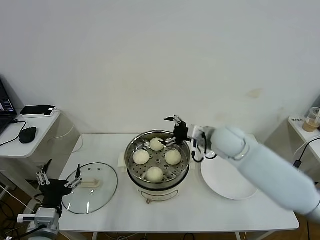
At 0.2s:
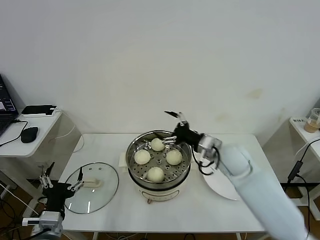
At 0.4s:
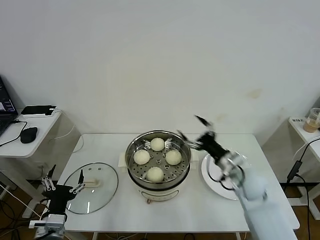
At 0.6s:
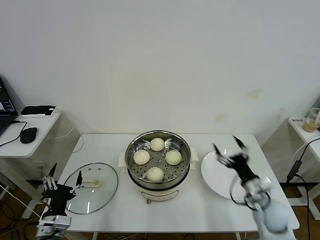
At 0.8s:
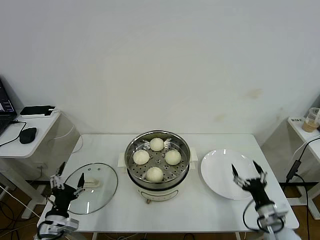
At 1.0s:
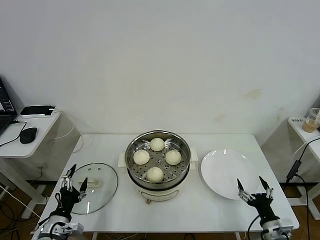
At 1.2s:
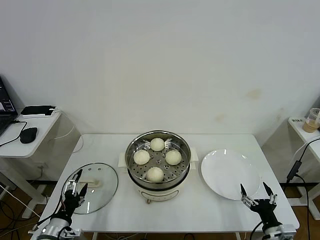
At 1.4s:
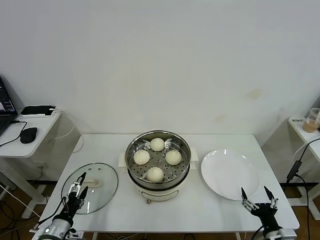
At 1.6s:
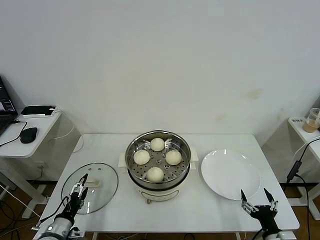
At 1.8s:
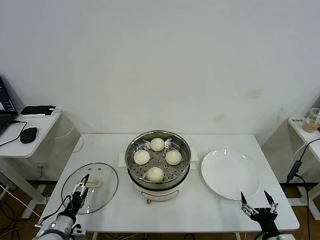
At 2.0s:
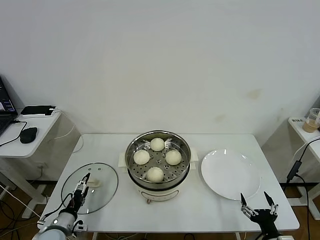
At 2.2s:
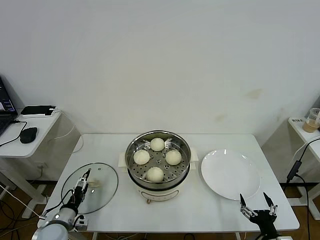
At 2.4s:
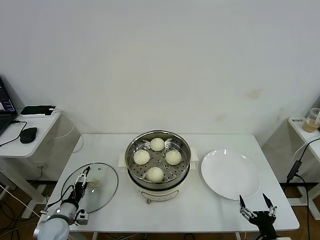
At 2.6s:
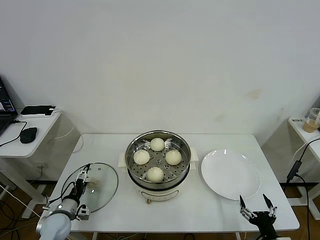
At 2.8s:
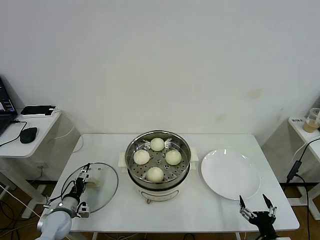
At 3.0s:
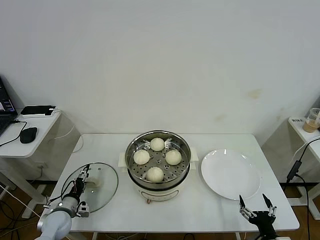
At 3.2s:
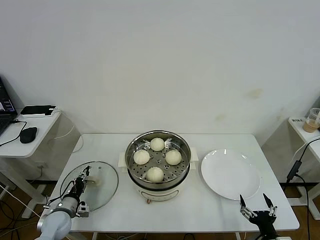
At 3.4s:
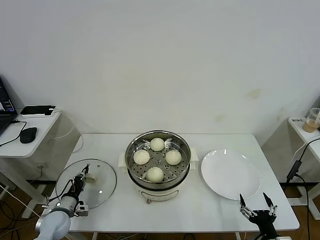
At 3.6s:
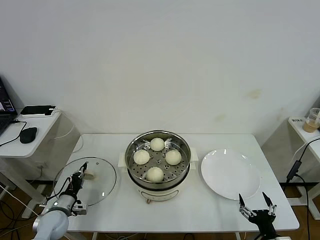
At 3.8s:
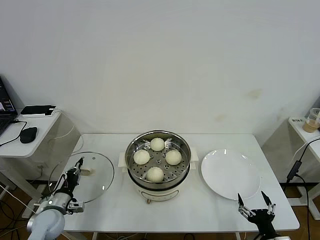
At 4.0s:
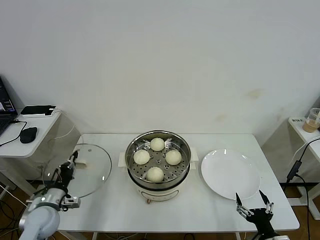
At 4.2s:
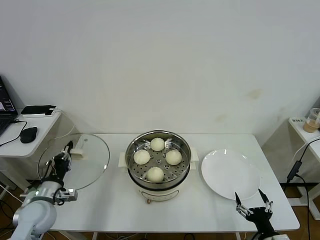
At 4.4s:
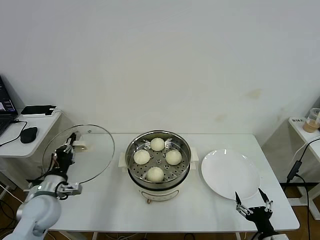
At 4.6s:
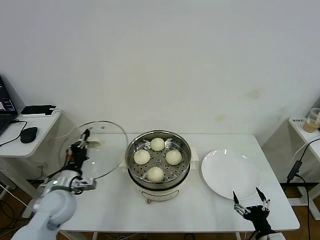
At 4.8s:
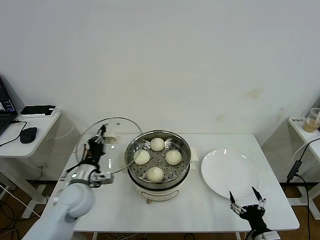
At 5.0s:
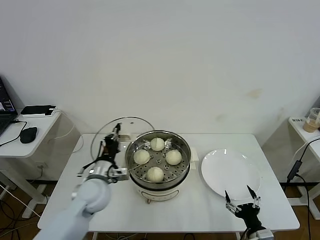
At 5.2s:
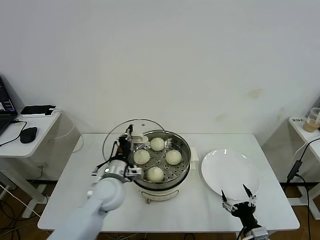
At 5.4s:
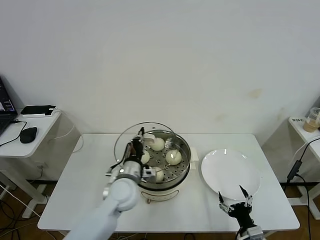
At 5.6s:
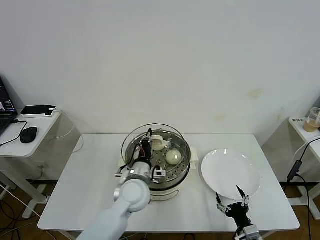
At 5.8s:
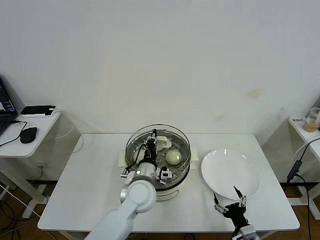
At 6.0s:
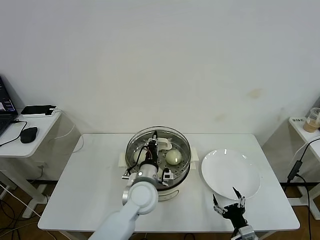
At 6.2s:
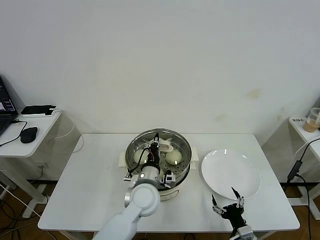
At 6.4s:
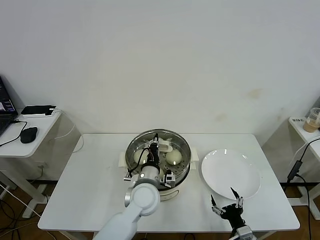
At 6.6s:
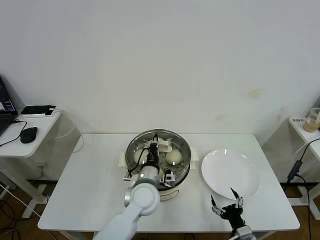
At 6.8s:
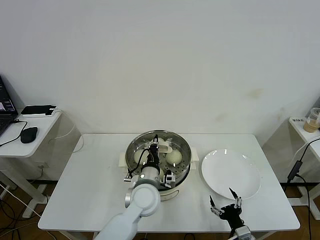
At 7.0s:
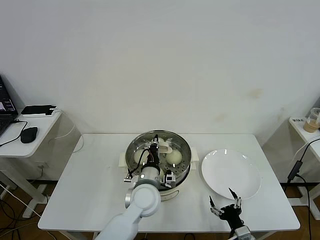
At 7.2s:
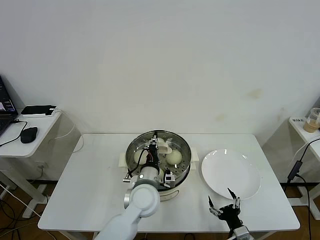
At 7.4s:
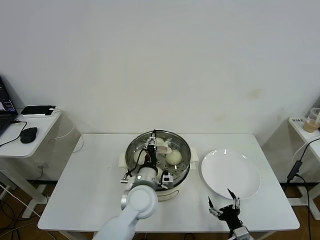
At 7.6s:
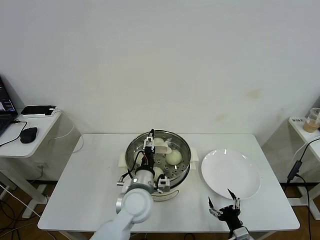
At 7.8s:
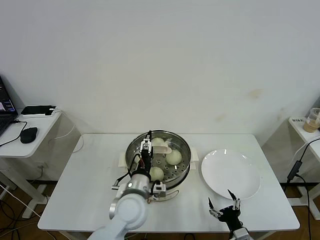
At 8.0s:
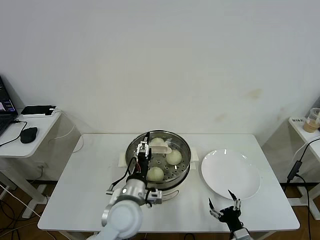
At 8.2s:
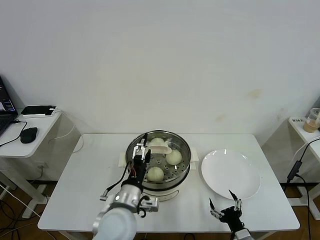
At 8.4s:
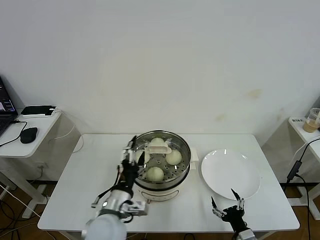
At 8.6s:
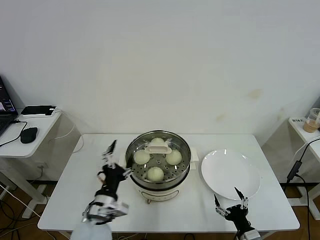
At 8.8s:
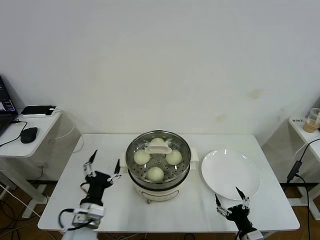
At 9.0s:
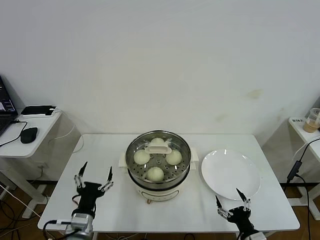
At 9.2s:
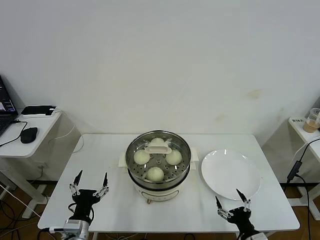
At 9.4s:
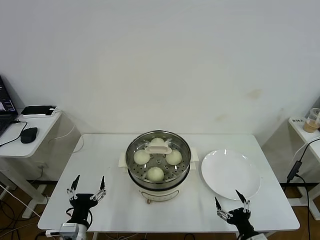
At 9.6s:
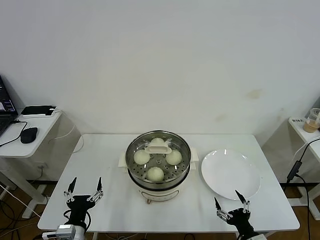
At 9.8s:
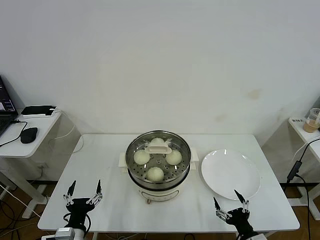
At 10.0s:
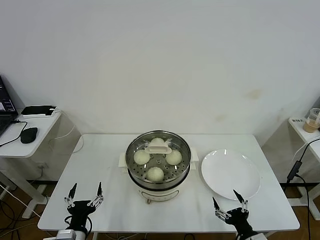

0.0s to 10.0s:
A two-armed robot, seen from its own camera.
Task of the whole recording: take steamed baozi put them in steamer then cover it.
Step, 0.0s to 3.8s: Grasp the pot lid with left gripper.
Step, 4.0s to 7.2s: Place the pot lid on the steamer with left gripper.
0.0s to 1.4s: The left gripper travels downward by some 10 cm; the right gripper goes some 40 cm backward, downward and to the right.
1.4s to 2.8s: The left gripper travels forward and downward by about 10 cm.
2.8s to 4.2s: The left gripper travels upward by approximately 10 cm, and closes its fingers.
4.2s to 5.8s: The right gripper ends up about 5 cm from where it was. The left gripper goes about 30 cm to the right.
5.8s to 7.2s: The grippers make only small movements.
7.2s to 8.6s: The left gripper moves to the left and backward, approximately 15 cm, and opens.
8.6s to 10.0s: The left gripper shifts some 15 cm to the left, downward and backward.
